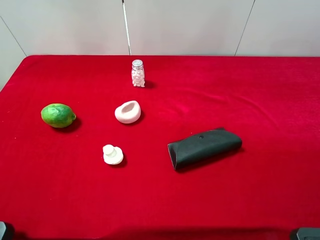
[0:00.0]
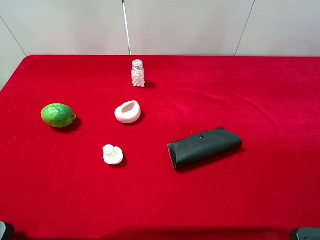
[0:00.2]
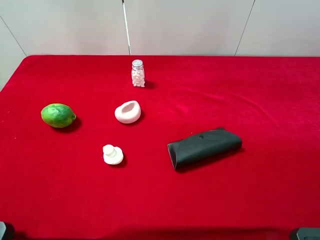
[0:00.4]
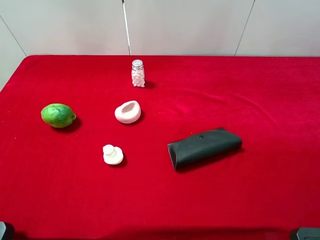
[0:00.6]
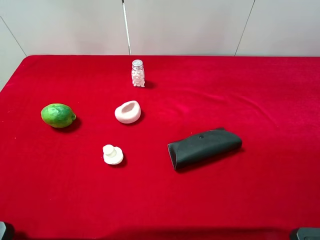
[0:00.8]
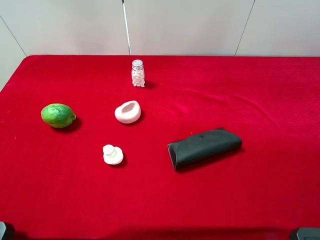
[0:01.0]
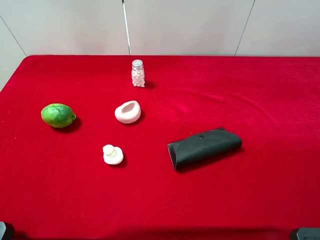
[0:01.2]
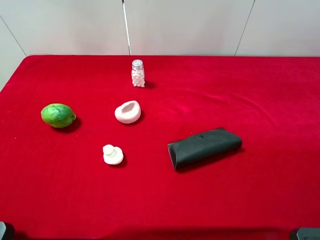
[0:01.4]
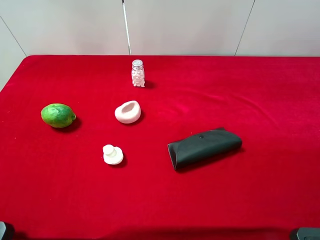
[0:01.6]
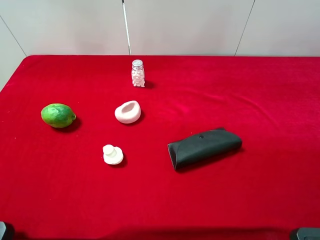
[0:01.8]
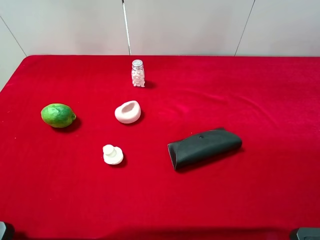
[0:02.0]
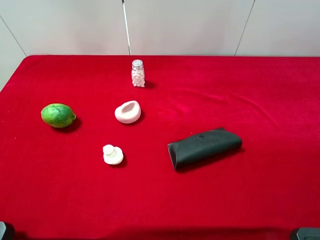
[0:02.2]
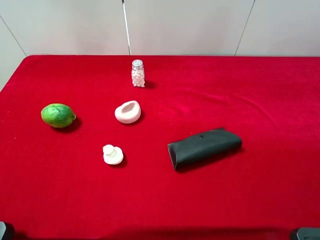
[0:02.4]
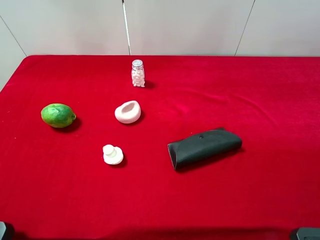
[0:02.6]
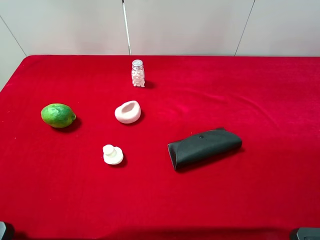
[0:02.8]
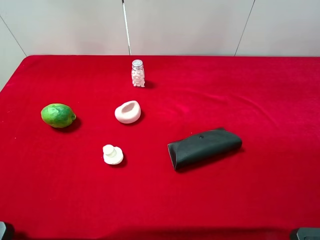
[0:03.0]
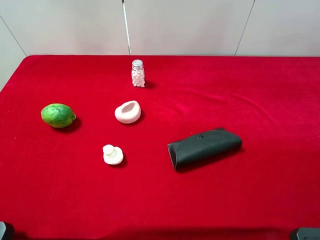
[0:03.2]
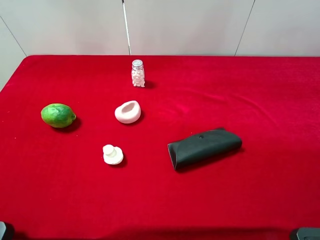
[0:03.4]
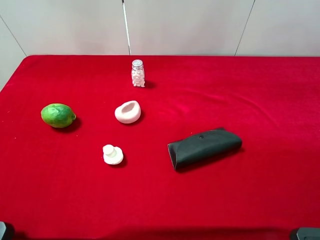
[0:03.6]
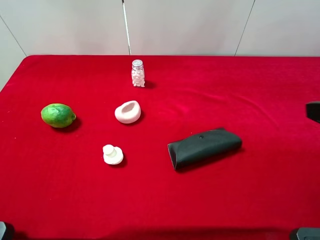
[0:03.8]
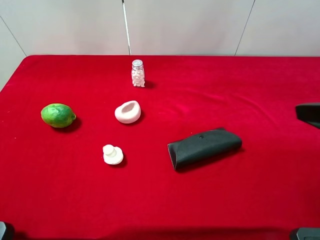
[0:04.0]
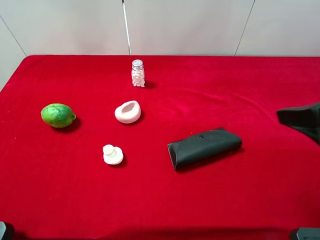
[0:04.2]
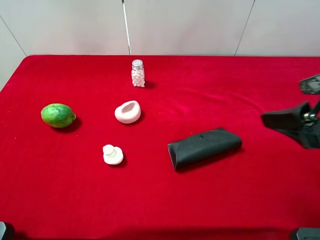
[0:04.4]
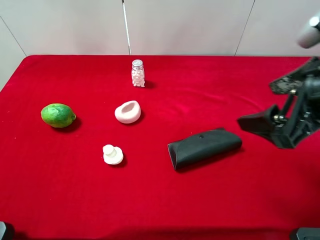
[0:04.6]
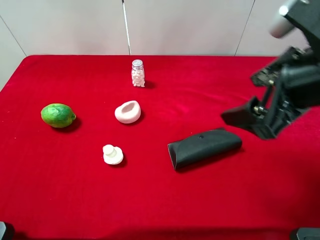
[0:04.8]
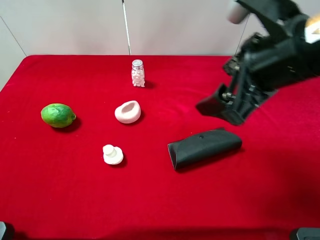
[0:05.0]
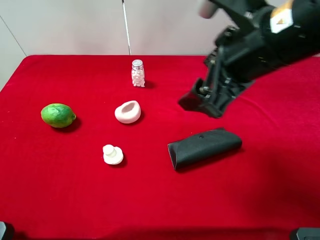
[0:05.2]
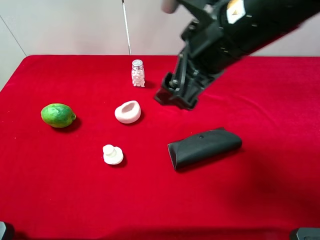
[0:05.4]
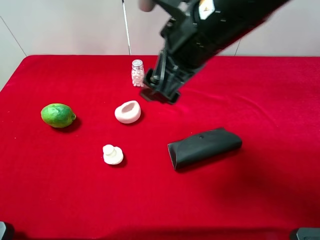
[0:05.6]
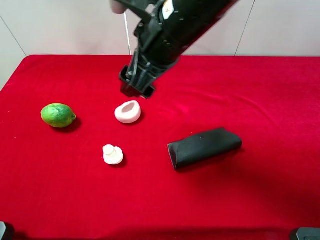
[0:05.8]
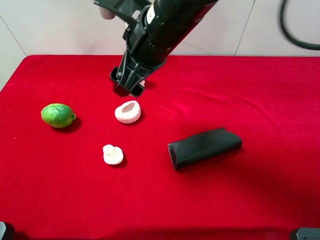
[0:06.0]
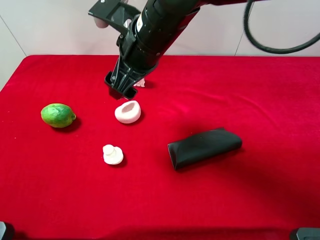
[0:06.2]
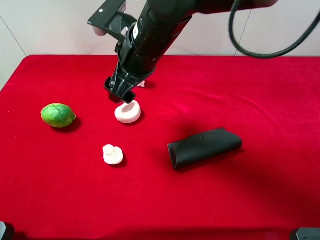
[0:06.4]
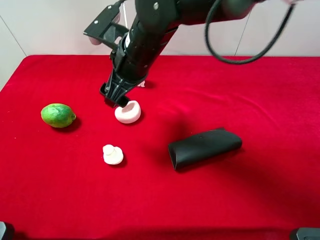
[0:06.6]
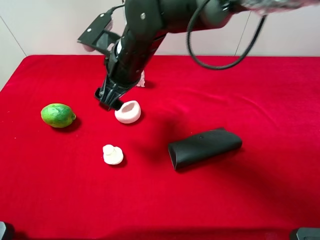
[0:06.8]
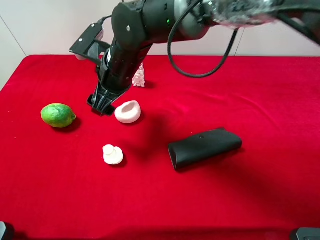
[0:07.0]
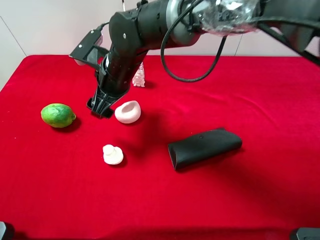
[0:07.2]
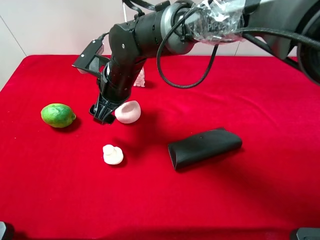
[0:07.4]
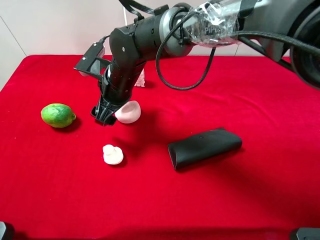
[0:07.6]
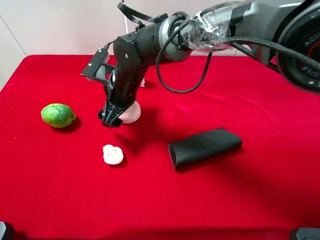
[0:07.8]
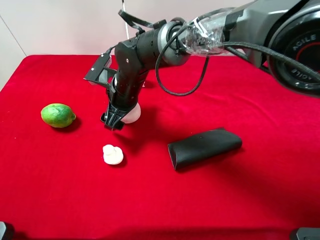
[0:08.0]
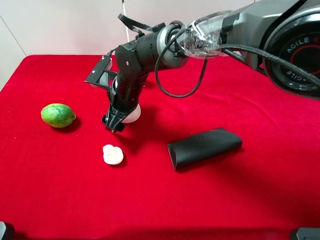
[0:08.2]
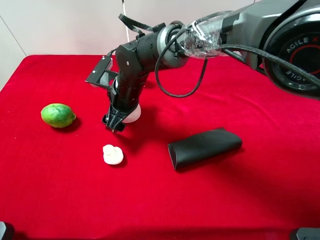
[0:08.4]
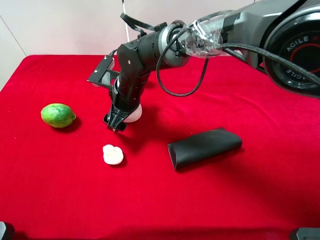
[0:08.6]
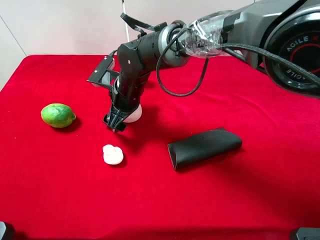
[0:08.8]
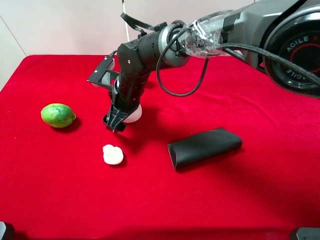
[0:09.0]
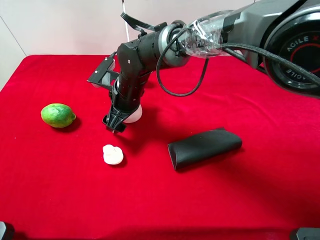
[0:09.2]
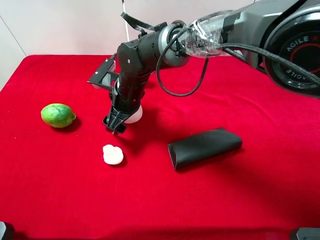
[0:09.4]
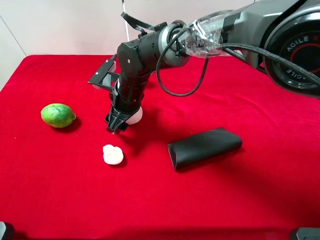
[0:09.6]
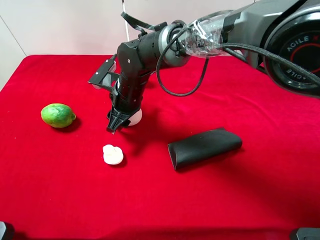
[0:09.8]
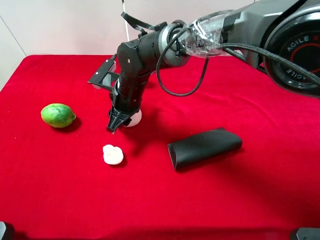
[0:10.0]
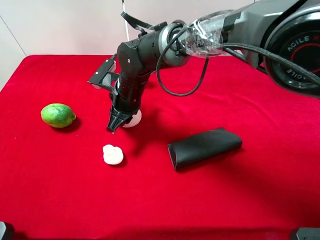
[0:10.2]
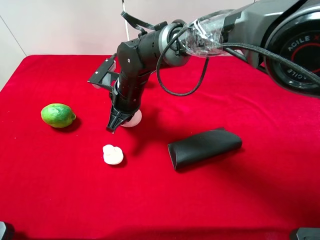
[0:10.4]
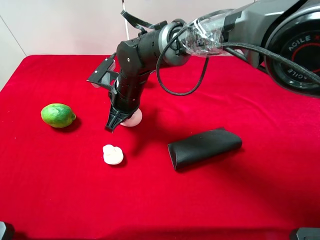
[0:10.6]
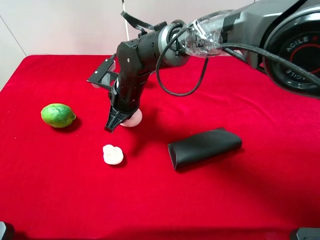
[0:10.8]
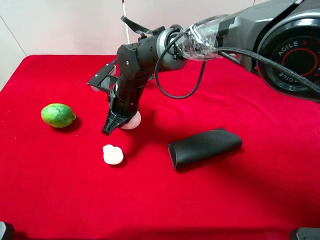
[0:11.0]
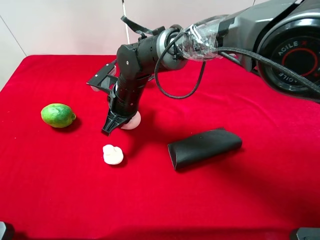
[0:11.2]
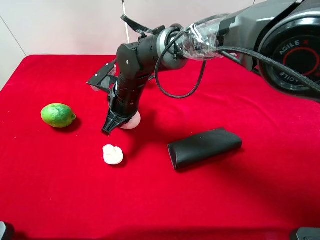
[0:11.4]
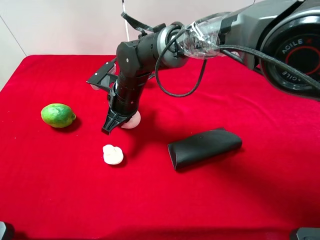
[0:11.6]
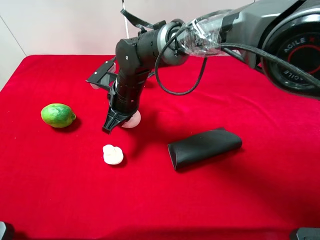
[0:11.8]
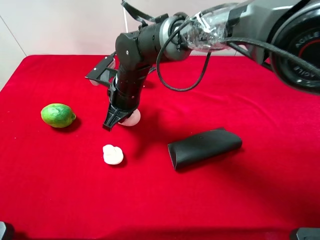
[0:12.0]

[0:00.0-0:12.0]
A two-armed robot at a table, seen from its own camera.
Task of the whole recording: the gripper move the object.
Step, 0:00.0 to 0:10.8: Grasp the peach with the right gripper.
0:00.0 to 0:03.0: Both grippers stay put.
0:03.0 to 0:04.4: The right gripper heads forward and to the left, covering some 15 cm.
0:04.4 to 0:06.0: The right gripper is displaced to the left and forward by approximately 25 cm.
0:06.0 to 0:07.6: The right gripper heads downward and to the left, covering about 15 cm.
0:07.6 to 0:09.0: There are only small adjustments of the grippers.
0:09.0 to 0:10.4: The right gripper closes up.
0:10.4 to 0:12.0: The grippers move only a little.

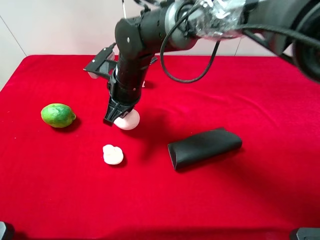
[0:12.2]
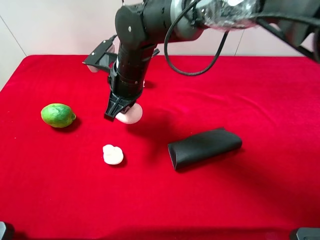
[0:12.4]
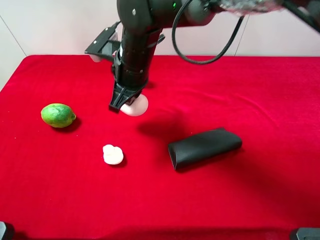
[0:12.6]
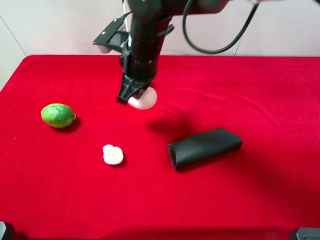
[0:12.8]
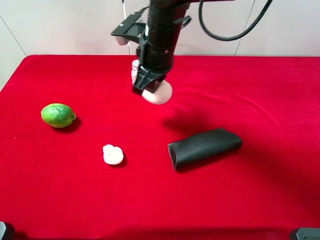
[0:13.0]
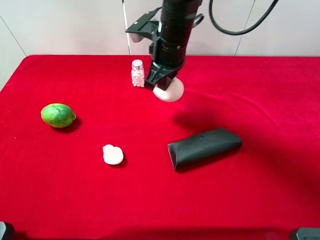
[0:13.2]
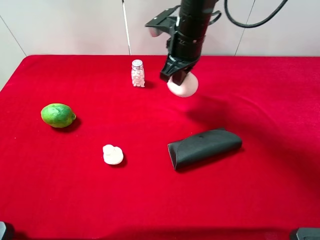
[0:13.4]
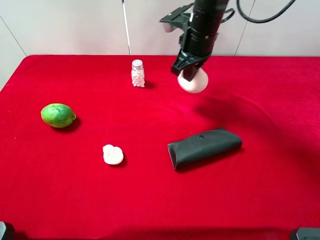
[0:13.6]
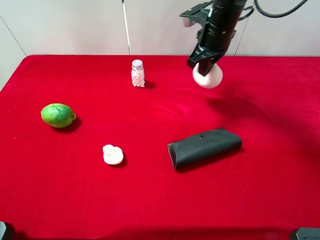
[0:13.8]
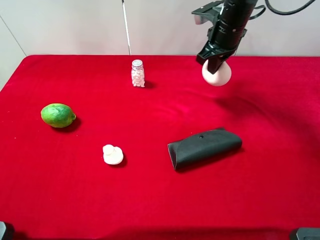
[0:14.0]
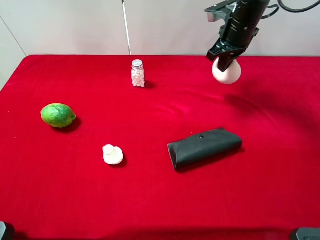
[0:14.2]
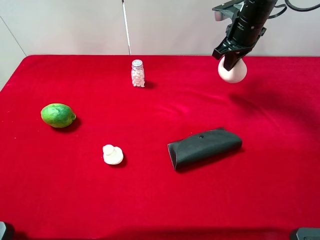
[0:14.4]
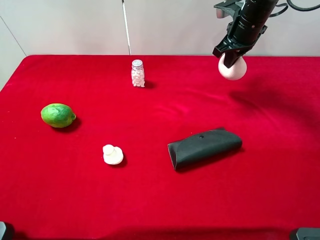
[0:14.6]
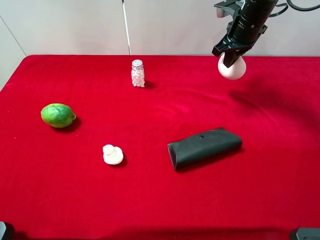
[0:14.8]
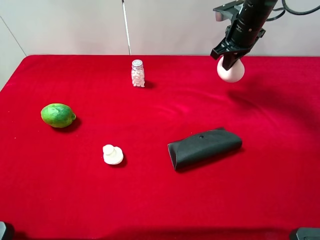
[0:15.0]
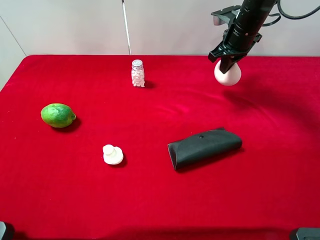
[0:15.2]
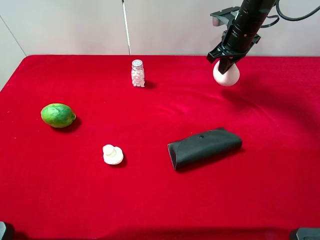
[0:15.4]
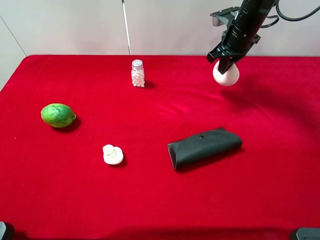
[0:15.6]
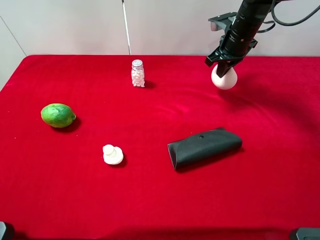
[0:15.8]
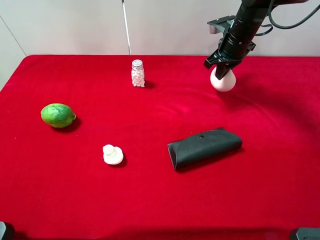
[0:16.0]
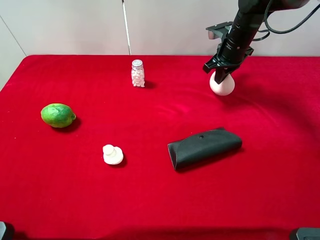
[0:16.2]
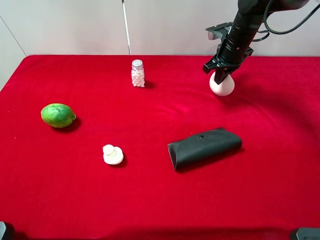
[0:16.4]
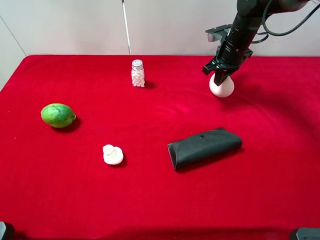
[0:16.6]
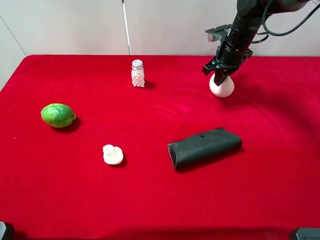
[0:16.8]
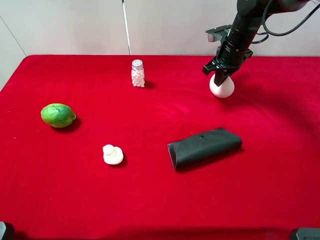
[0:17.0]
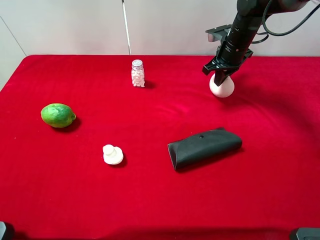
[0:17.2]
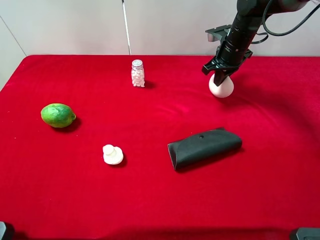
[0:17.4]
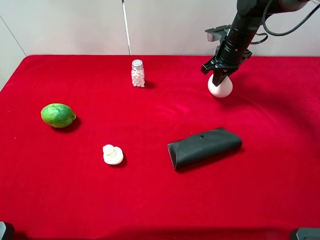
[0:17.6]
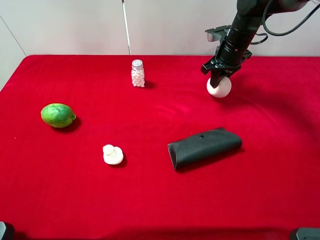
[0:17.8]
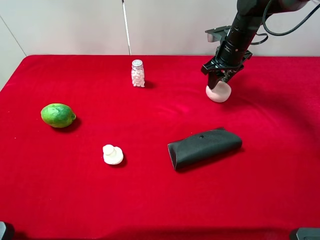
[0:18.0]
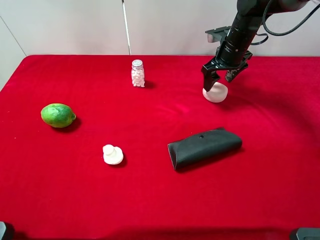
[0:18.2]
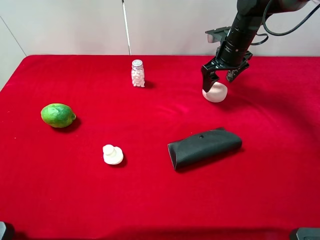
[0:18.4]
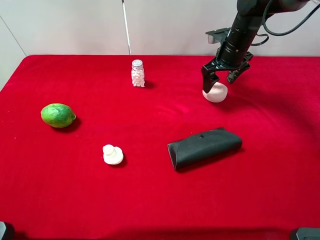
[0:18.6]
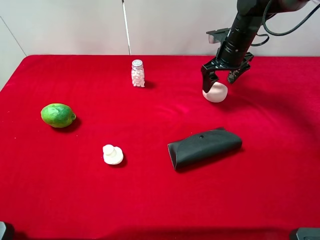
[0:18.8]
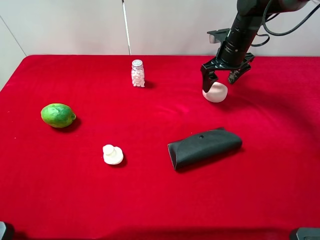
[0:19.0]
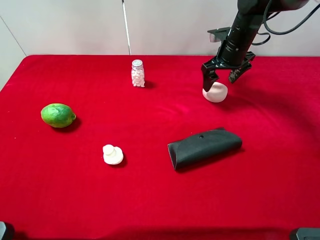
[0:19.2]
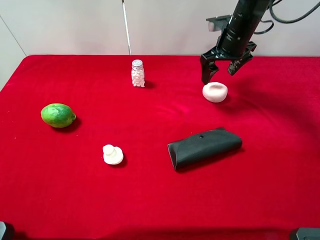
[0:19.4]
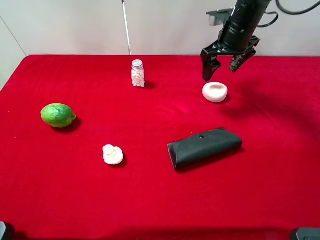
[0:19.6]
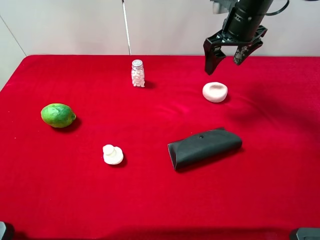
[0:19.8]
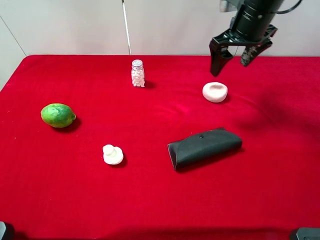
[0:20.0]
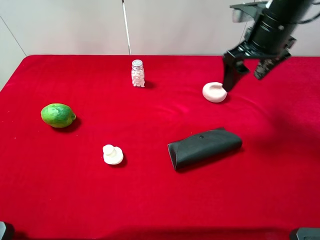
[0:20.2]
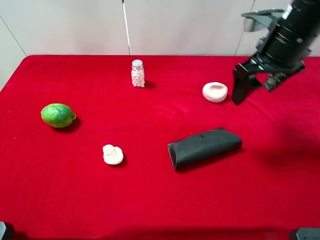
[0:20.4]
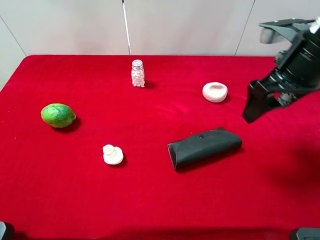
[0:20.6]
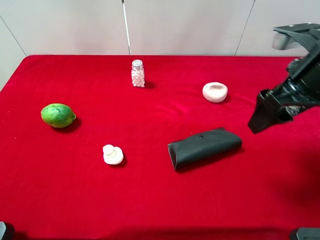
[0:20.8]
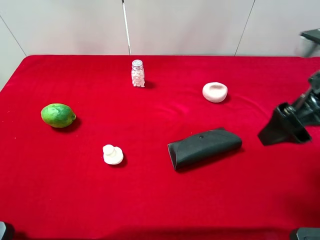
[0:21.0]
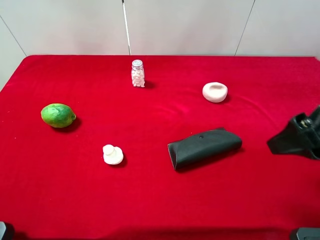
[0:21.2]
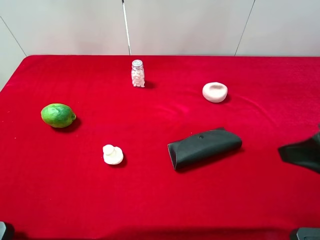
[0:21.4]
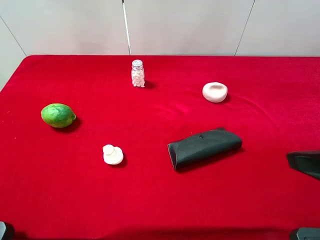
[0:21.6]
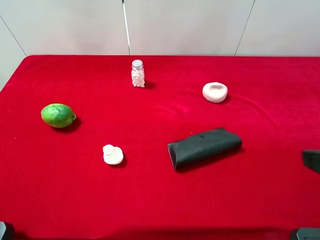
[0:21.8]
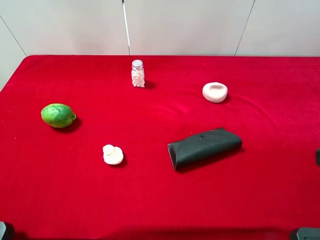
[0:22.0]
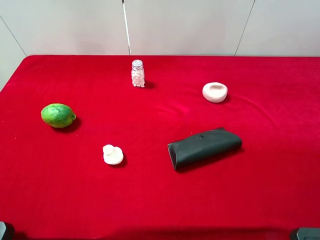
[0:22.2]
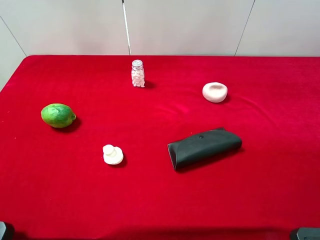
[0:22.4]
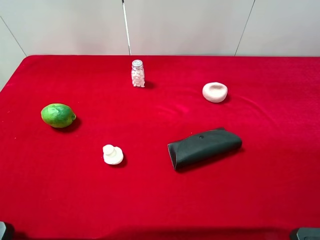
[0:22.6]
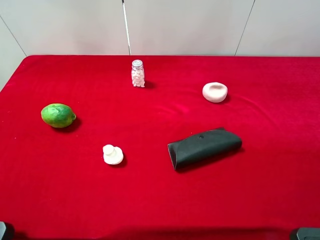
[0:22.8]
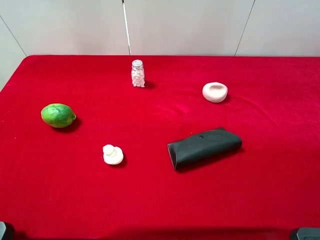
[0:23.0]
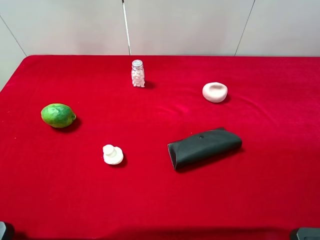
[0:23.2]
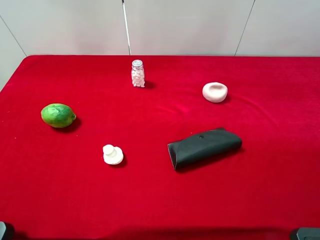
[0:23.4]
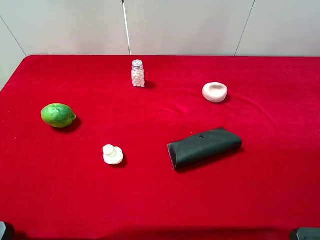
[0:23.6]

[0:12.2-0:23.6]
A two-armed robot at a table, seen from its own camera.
Task of the whole recording: the gripper move the object.
Step, 0:12.2 to 0:19.6: Place the peach on the table with the right gripper.
0:12.2 to 0:13.6: The right gripper heads to the right, forward and upward, covering about 20 cm.
0:13.6 to 0:15.0: The right gripper moves to the right and forward, approximately 10 cm.
0:15.0 to 0:16.4: There are only small adjustments of the grippers.
0:16.4 to 0:17.8: The right gripper opens its fingers.
0:17.8 to 0:19.4: The right gripper opens.
0:19.4 to 0:20.8: The right gripper shifts roughly 20 cm backward.
0:20.8 to 0:22.2: The right gripper goes roughly 20 cm backward.
